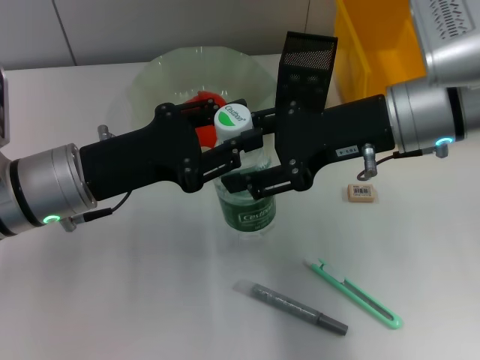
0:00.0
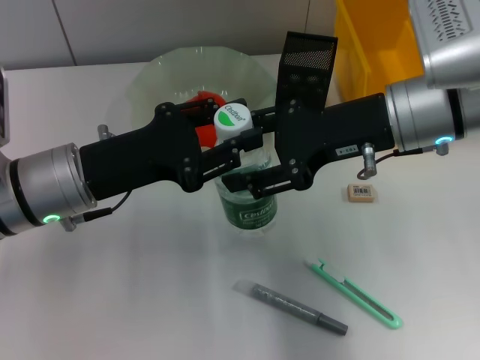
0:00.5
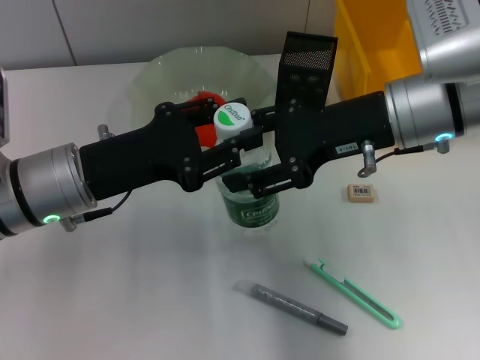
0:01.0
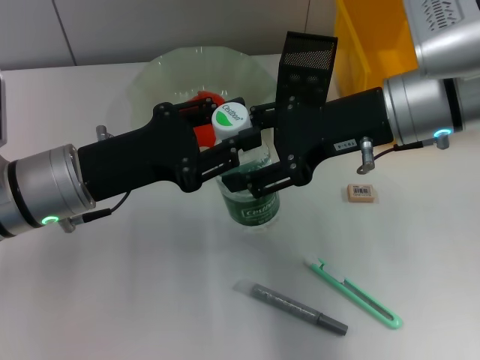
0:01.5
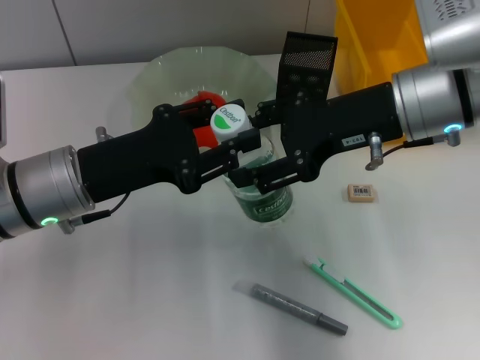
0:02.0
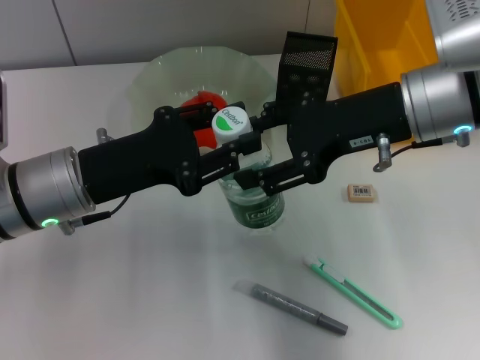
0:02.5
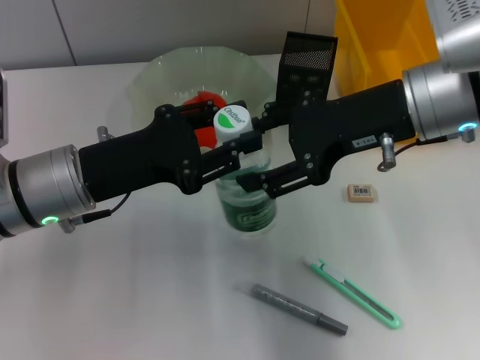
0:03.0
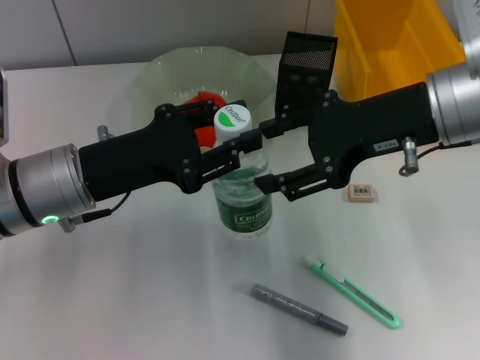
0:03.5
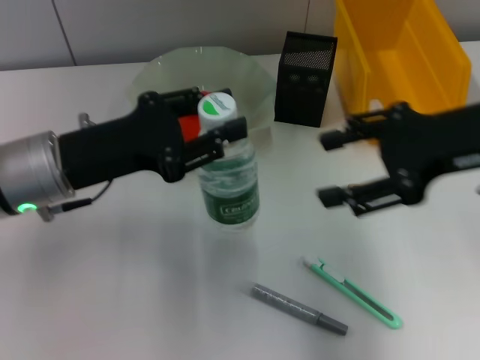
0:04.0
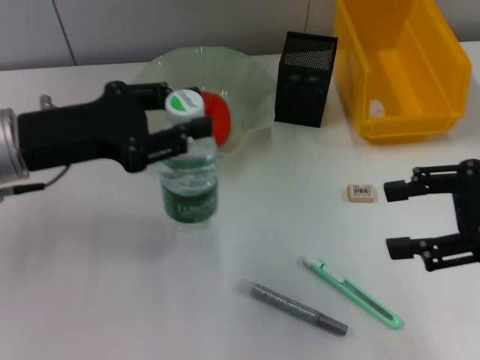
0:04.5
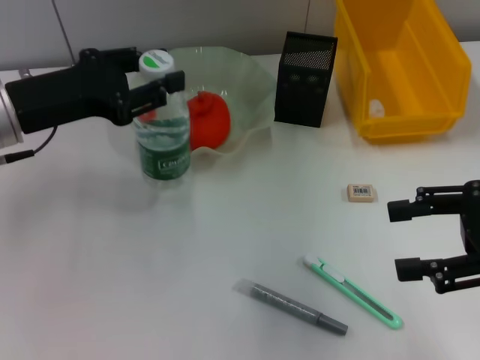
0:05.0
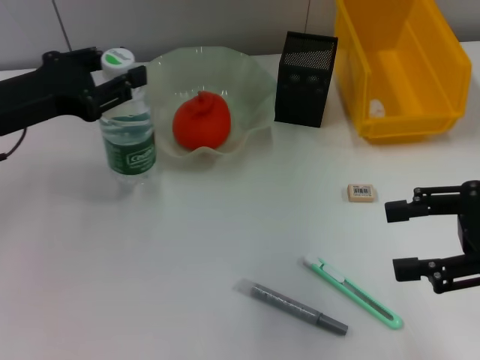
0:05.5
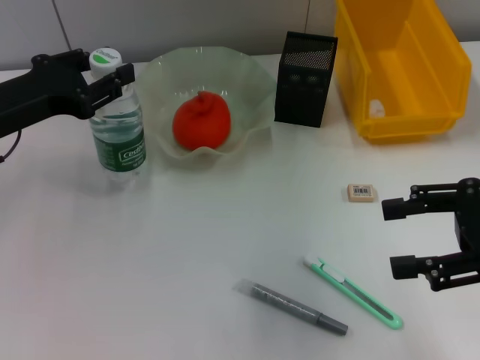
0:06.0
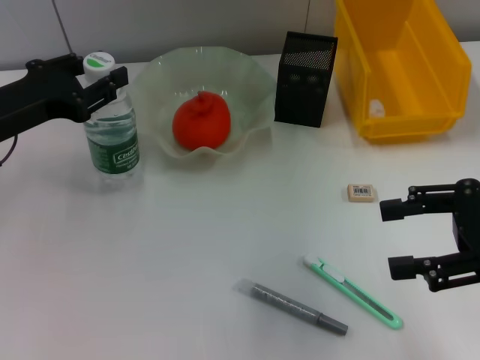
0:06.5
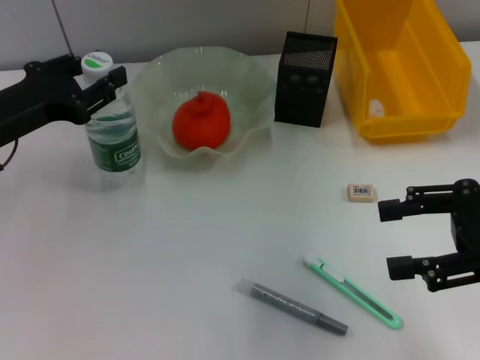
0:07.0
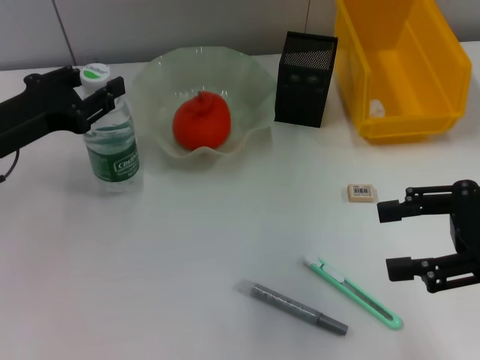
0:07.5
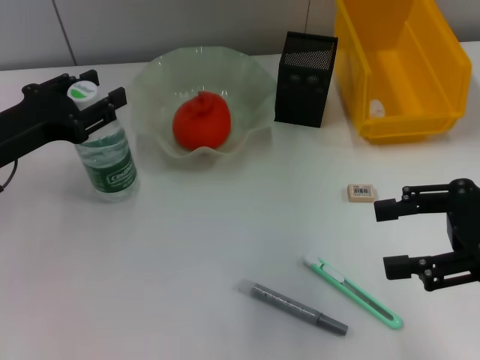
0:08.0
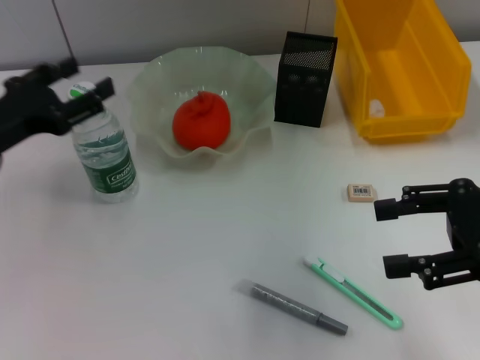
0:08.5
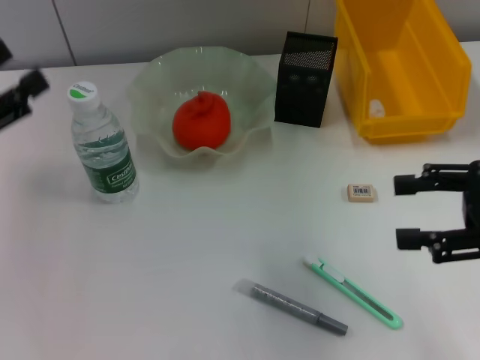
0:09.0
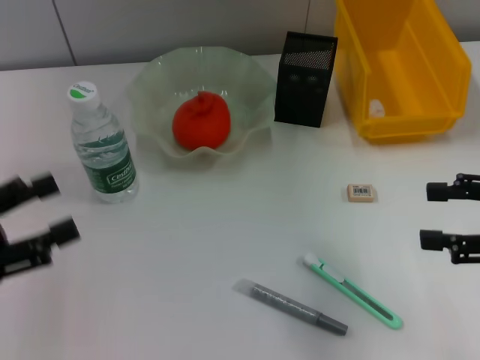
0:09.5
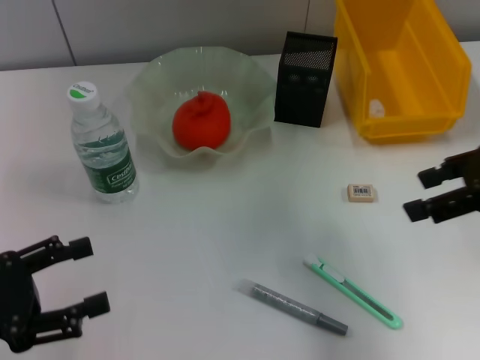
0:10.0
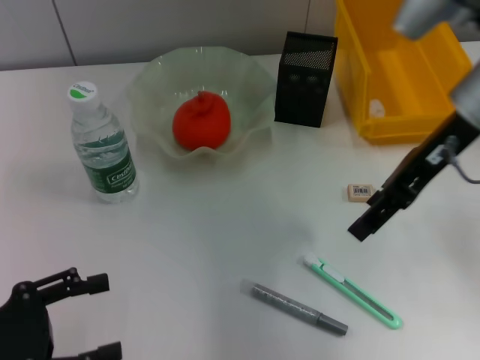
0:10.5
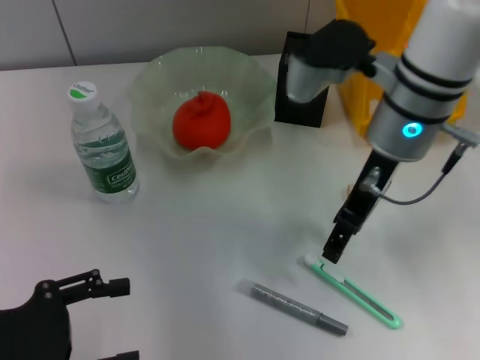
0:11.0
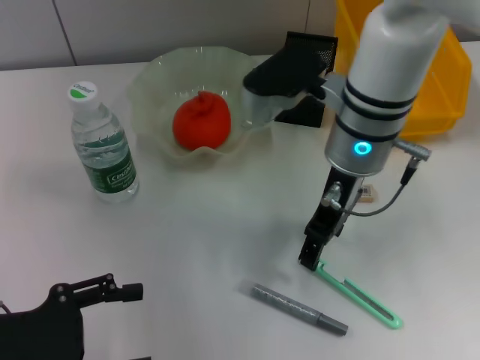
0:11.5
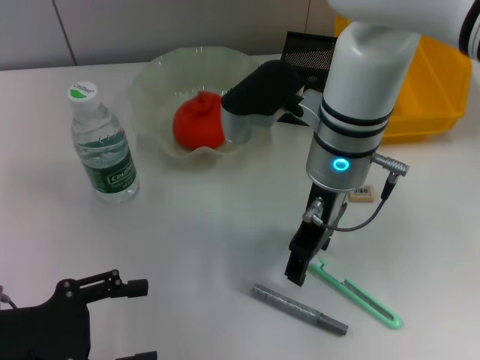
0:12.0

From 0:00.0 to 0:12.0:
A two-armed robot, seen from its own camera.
Step, from 0:00.0 to 0:03.0: Pass the water bottle from the right hand to the left hand.
Step, from 0:03.5 to 0:08.0: Place the water bottle on the table with the left hand.
From 0:00.0 to 0:02.0: The grippers stay close to where they were, moving slightly.
From 0:02.0 to 0:04.0: The right gripper goes some 10 cm to the right and backward.
From 0:04.0 to 0:06.0: The right gripper goes about 10 cm to the right and backward, while the left gripper goes roughly 5 cm to the left.
From 0:06.0 to 0:08.0: There are only small adjustments of the grippers.
From 0:08.0 to 0:10.0: The right gripper shifts some 5 cm forward. Meanwhile the left gripper moves backward, approximately 15 cm, and opens up.
From 0:10.0 to 0:12.0: The right gripper shifts roughly 20 cm to the left.

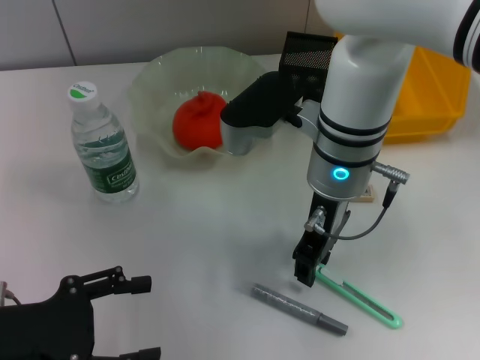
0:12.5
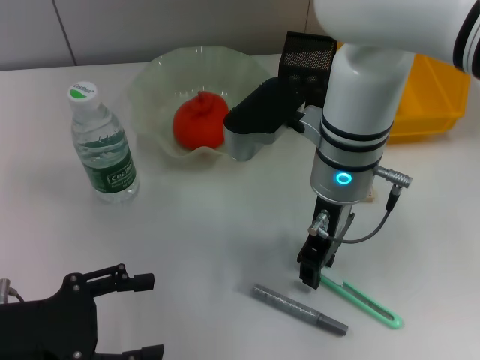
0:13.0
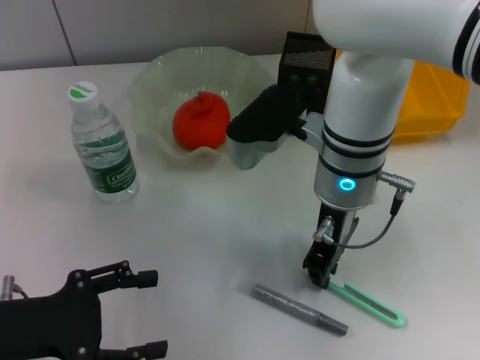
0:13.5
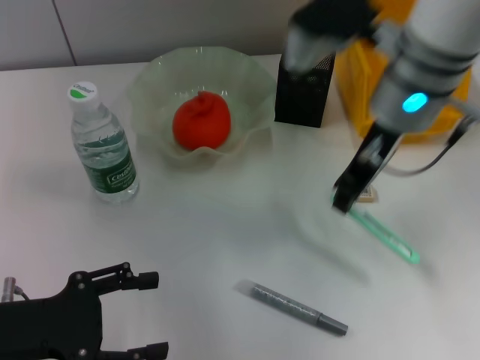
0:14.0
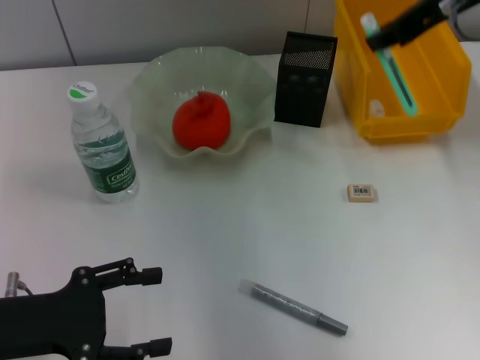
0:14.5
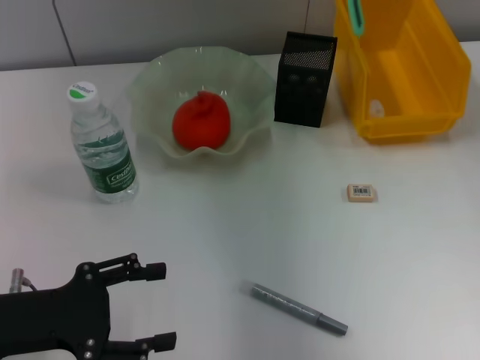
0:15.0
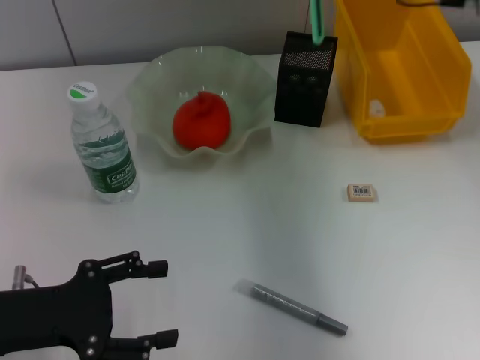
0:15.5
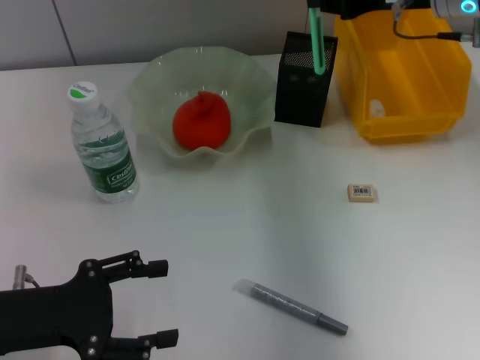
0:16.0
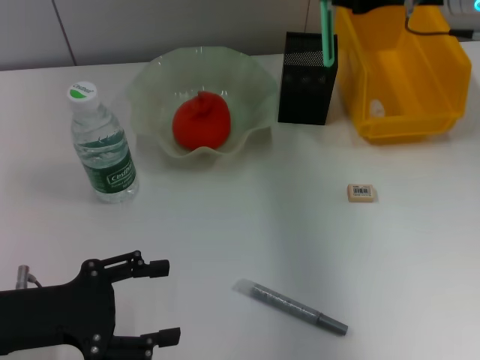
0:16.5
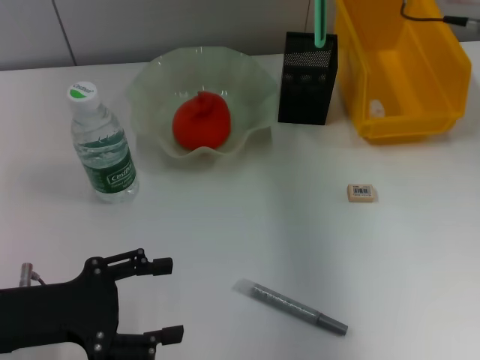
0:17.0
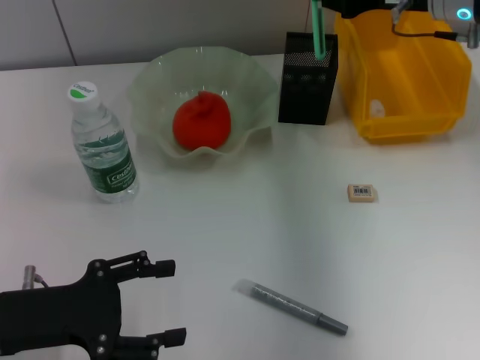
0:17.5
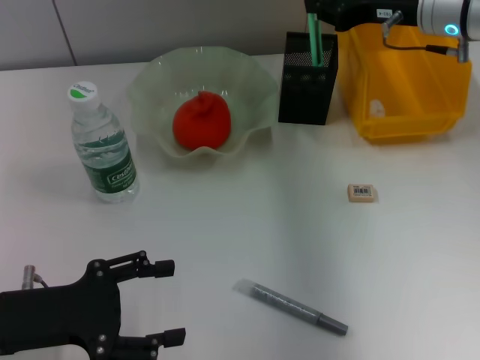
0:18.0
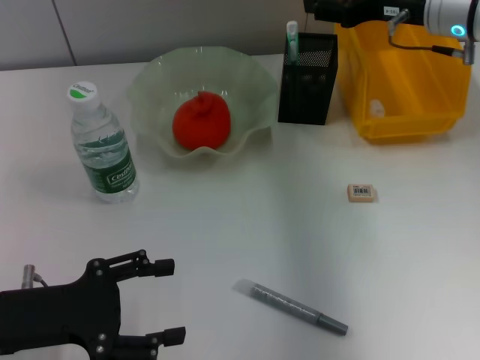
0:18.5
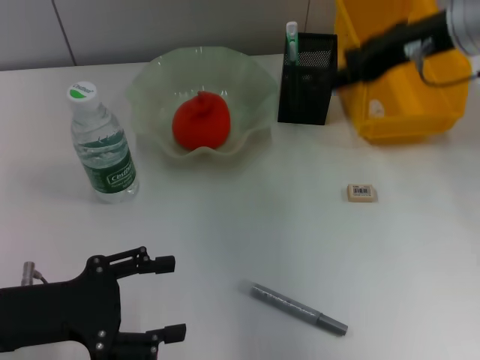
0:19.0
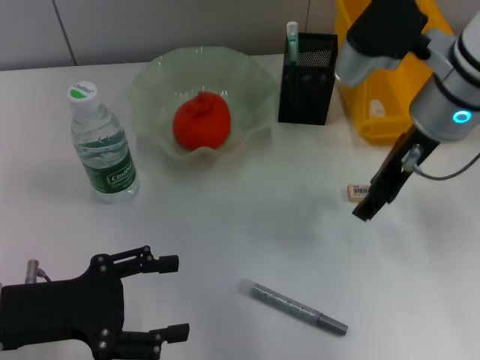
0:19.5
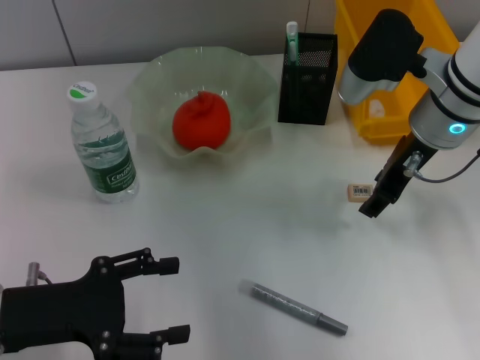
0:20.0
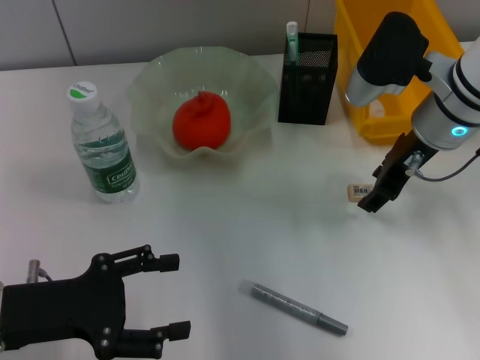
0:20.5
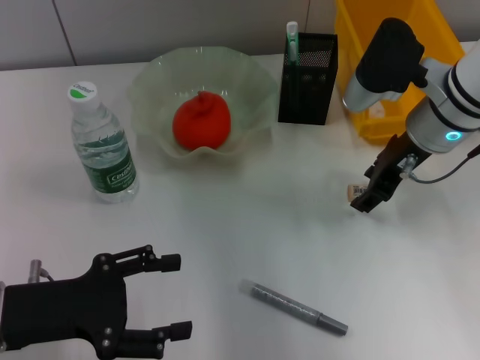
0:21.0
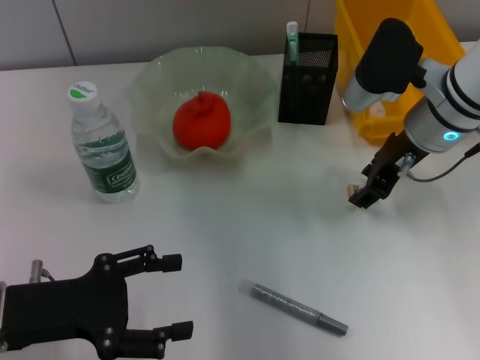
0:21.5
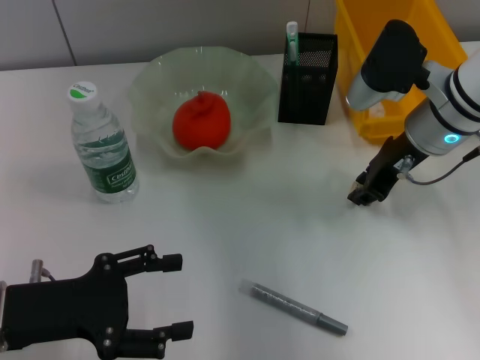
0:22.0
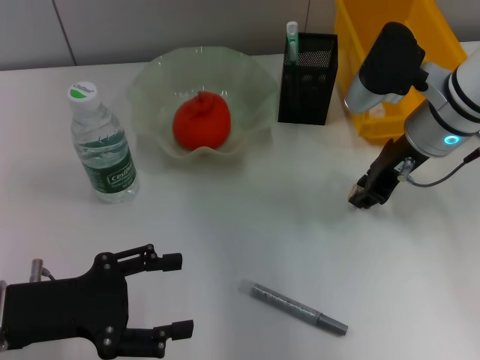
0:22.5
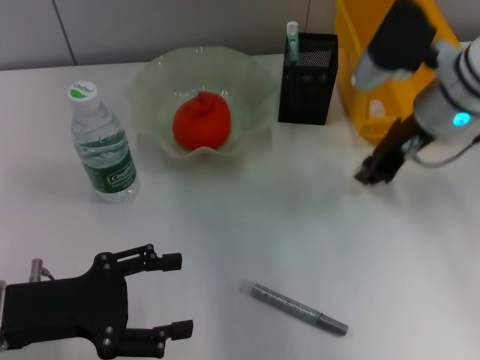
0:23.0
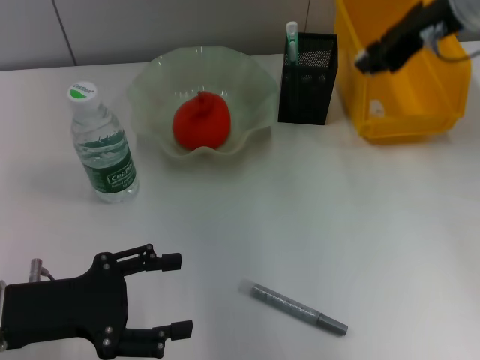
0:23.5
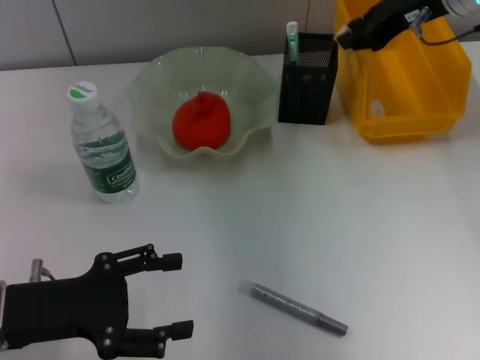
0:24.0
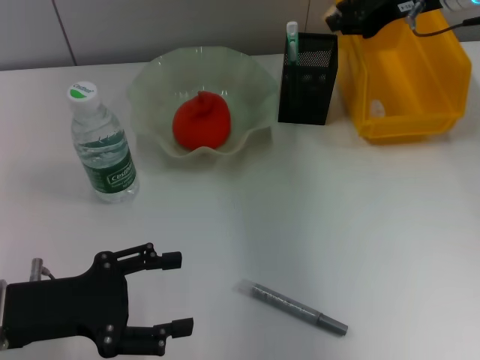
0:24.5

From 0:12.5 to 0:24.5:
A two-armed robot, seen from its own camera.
Step, from 0:14.0 to 0:18.5: Place the blue utility knife into the pen holder with the right hand.
Step, from 0:19.0 to 0:22.5: Grab the eraser with the right hand.
From 0:12.5 to 0:14.5: The right gripper travels to the right and upward by about 20 cm, and closes its fingers.
From 0:14.5 to 0:16.5: The right gripper shifts roughly 5 cm downward.
From 0:16.5 to 0:18.5: The right gripper opens up.
From 0:18.5 to 0:20.5: The right gripper heads backward, covering some 5 cm, and goes upward and returns, roughly 5 cm each way.
From 0:20.5 to 0:22.5: The right gripper closes.
From 0:22.5 to 0:24.5: The right gripper heads upward and forward, covering roughly 10 cm.

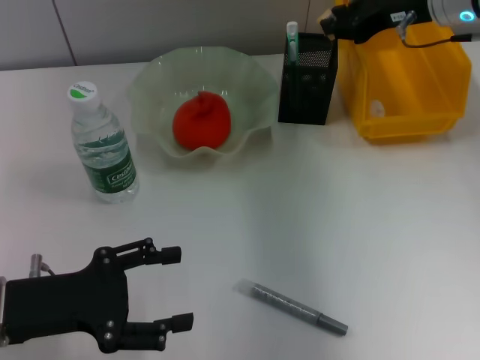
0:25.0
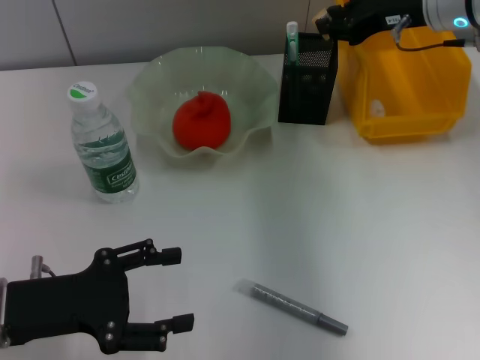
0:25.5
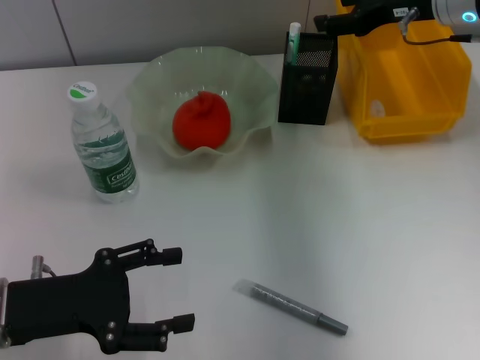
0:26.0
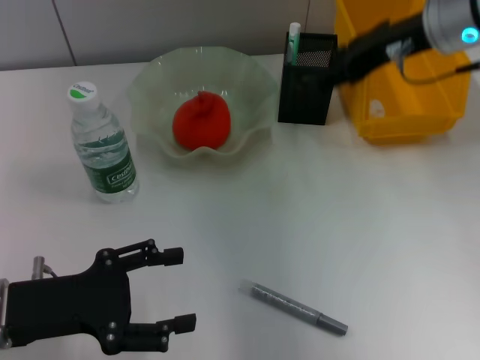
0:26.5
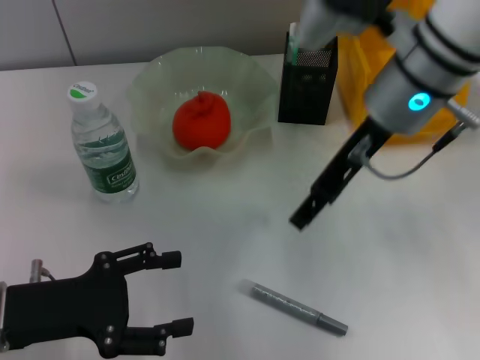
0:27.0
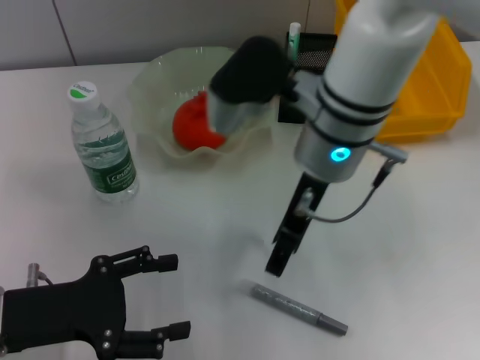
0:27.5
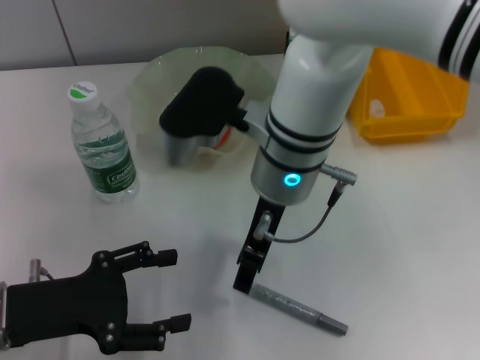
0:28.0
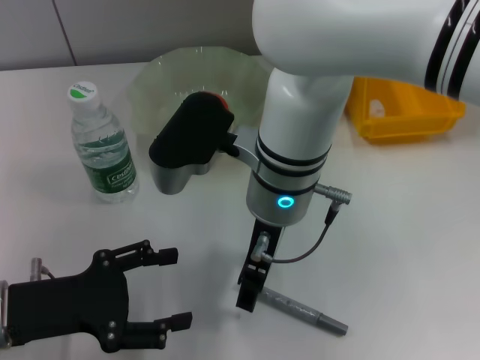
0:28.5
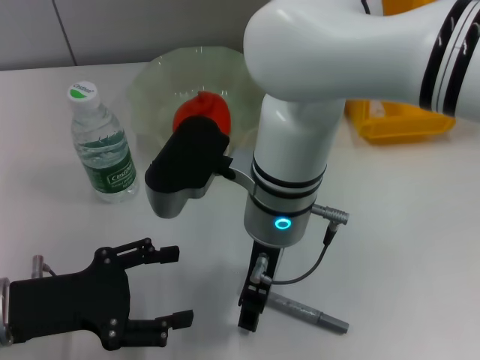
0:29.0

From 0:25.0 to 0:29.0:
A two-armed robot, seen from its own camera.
From 0:25.0 to 0:27.0: The right gripper shifts roughly 15 cm to the left and backward, and opens its fingers.
From 0:27.0 to 0:29.0: The right gripper shifts approximately 15 cm to the left and downward.
